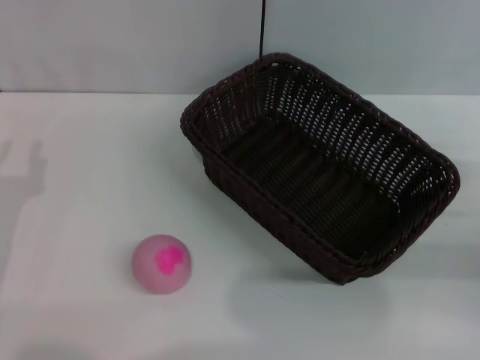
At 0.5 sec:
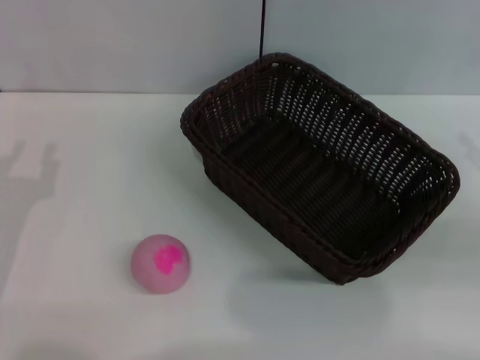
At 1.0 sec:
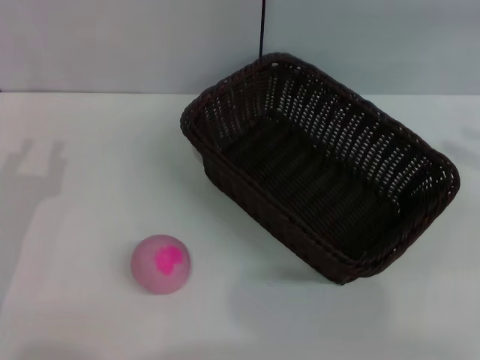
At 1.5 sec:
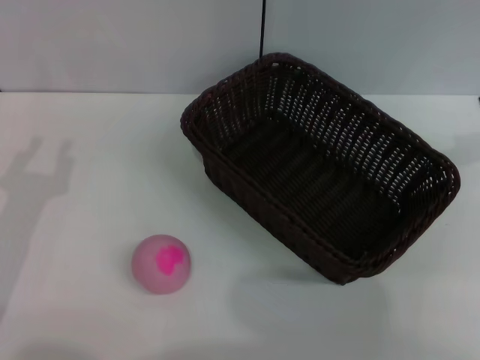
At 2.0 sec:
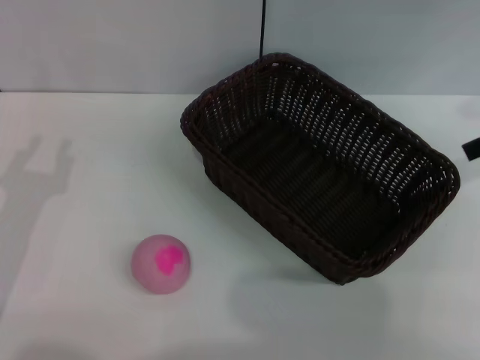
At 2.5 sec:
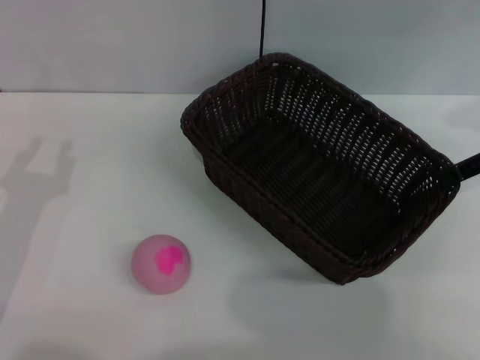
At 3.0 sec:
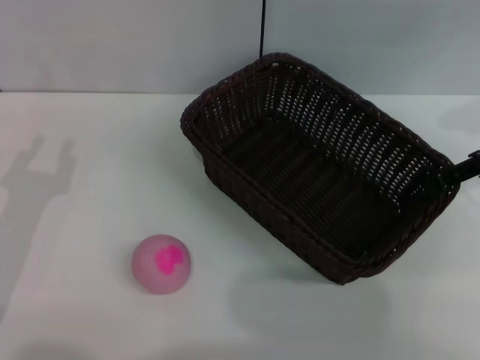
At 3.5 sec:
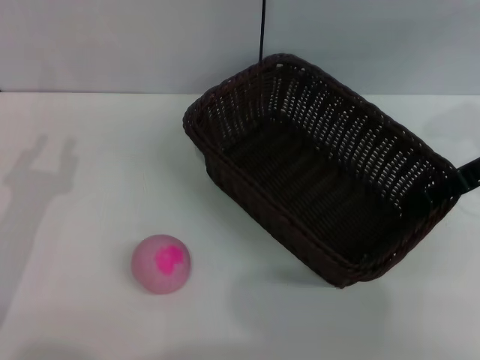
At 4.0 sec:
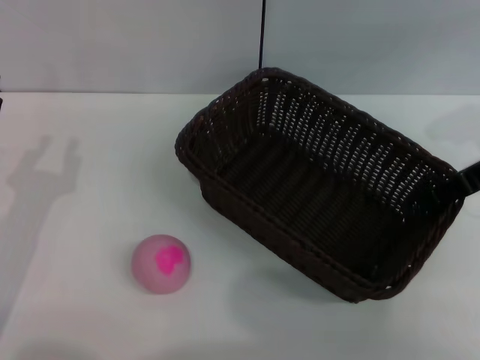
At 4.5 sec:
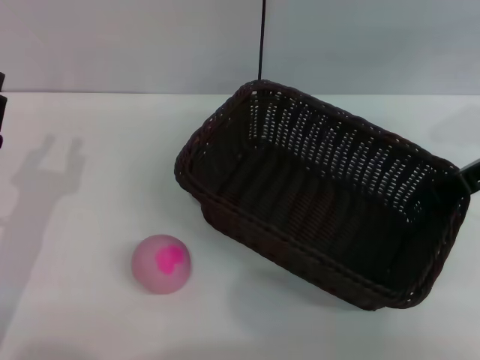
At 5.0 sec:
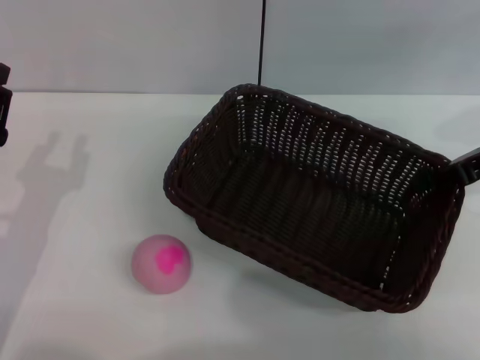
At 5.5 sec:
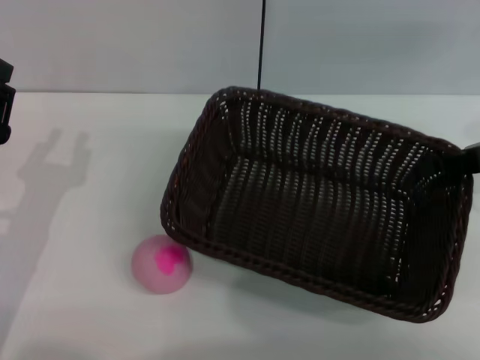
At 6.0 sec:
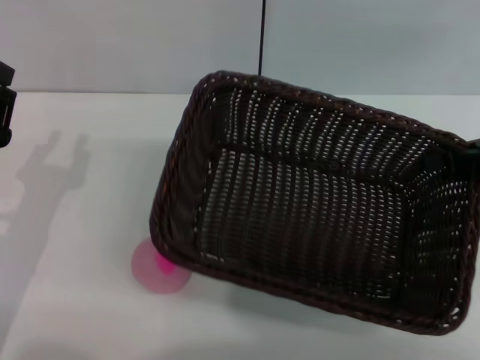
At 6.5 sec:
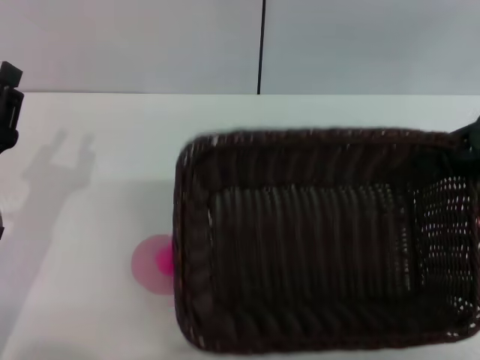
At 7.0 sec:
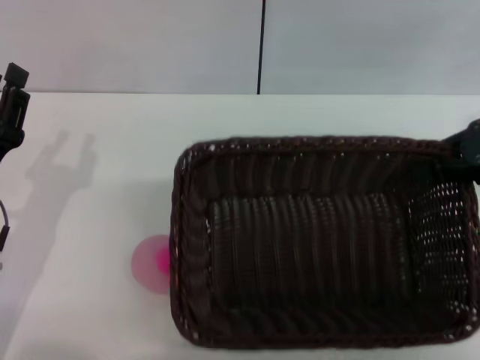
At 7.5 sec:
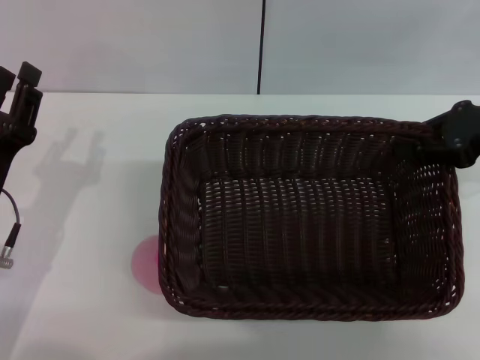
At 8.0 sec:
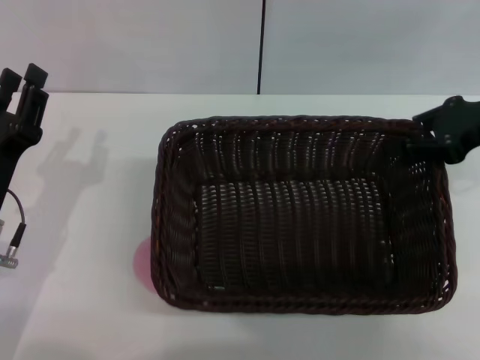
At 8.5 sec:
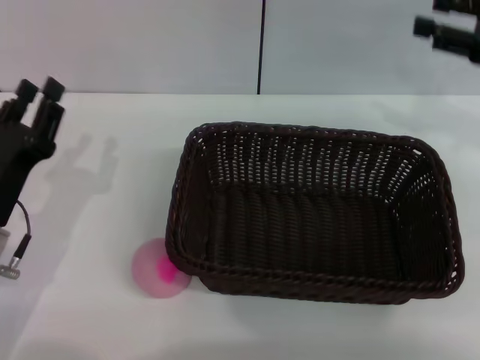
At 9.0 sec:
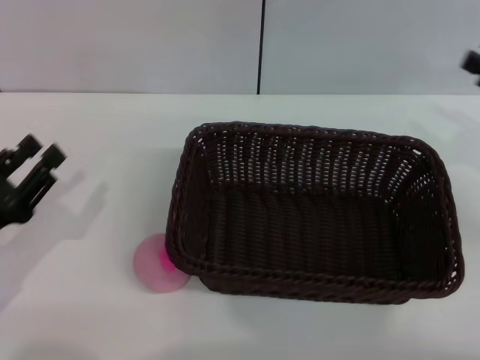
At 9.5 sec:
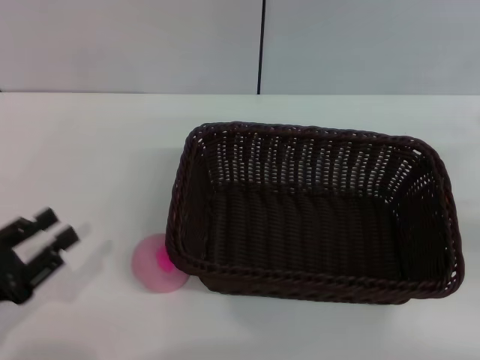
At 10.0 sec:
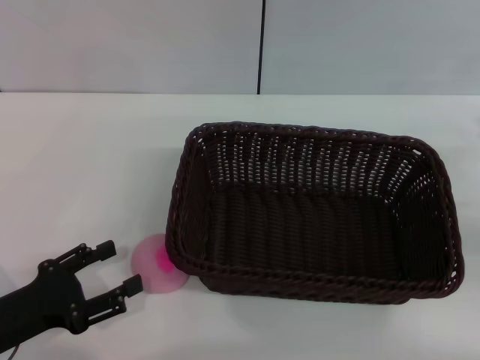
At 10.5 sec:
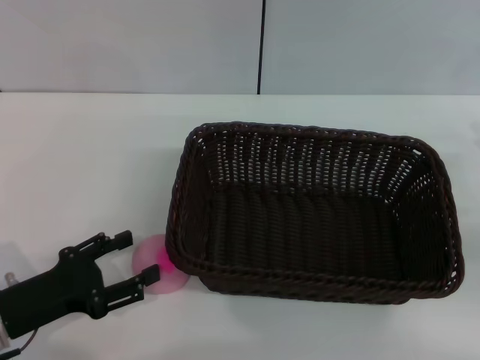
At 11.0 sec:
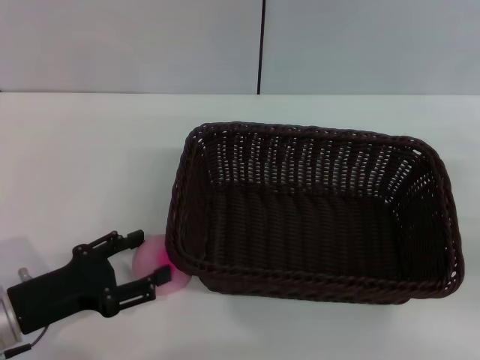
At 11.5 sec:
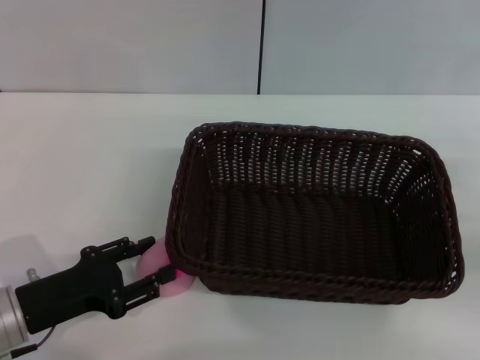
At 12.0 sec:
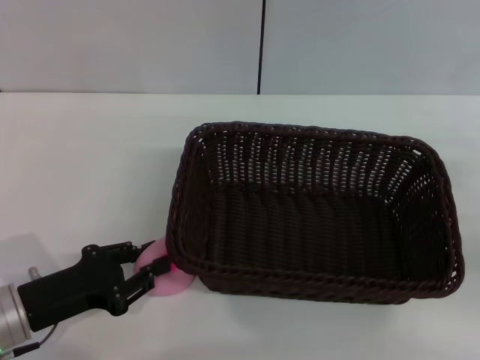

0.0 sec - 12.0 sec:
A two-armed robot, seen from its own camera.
Step, 0.0 sec - 5.5 sec: Pick up the dark basket with the right gripper.
Step, 6.0 sec - 8.5 sec: Place the dark basket in the center of view with the right gripper.
0.0 sec - 2.0 sec: The right gripper travels upward and forward by some 20 cm.
2.0 sec - 4.0 sec: The right gripper heads downward, covering approximately 5 cm, and closes up.
4.0 sec - 6.0 sec: The right gripper ends up about 5 cm from where it was.
6.0 sec - 8.0 sec: The right gripper moves some 5 cm.
8.0 sec - 10.0 sec: The right gripper shifts about 15 cm backward, to the right and downward, and opens up. The left gripper travels backward by roughly 5 cm.
10.0 sec - 12.0 sec: The left gripper closes up.

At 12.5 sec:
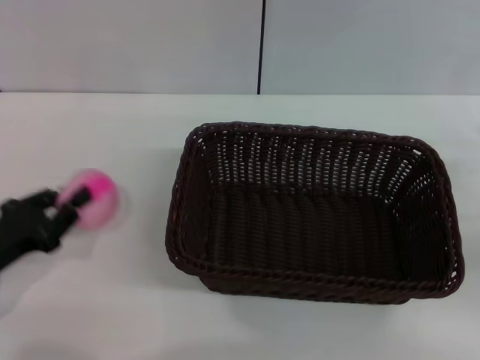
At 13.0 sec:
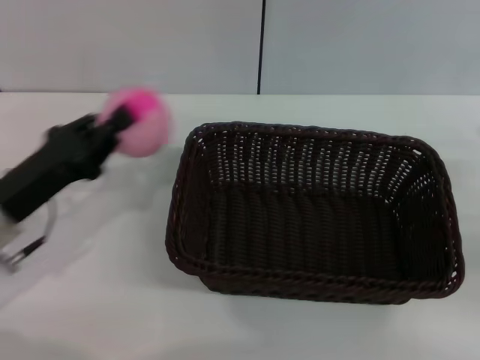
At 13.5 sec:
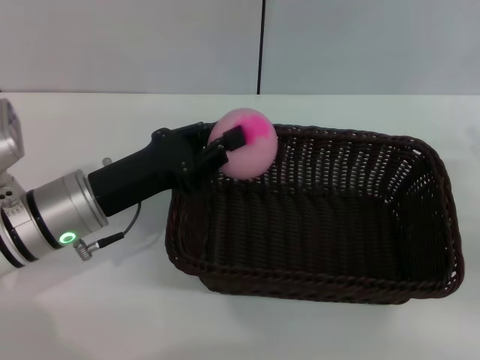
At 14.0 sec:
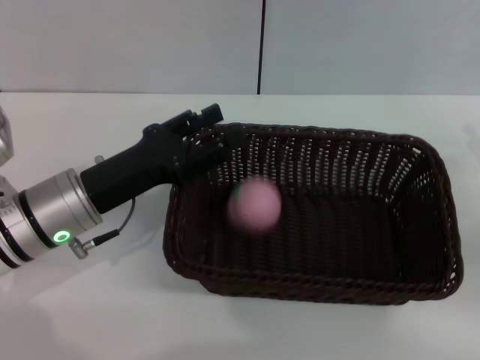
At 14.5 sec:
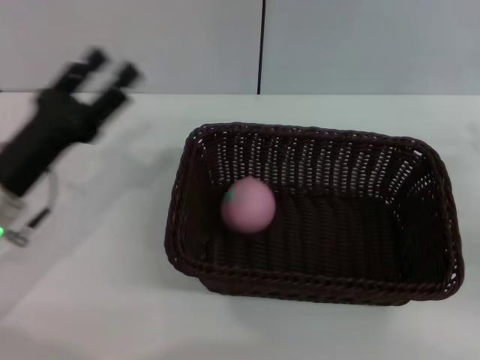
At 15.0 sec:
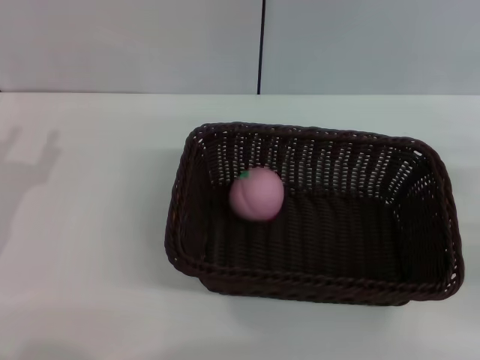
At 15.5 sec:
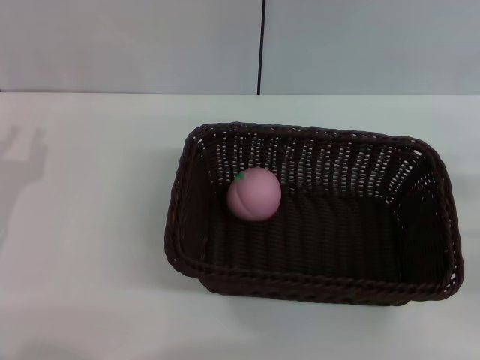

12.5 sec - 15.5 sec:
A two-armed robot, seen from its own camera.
Step, 13.0 sec - 14.0 sec: Place the peach into the basket with the left gripper.
12.5 sec - 14.0 sec: The left gripper shifts roughly 15 cm to the right and forward.
14.0 sec - 15.5 sec: The left gripper is displaced to the left and backward by some 15 cm.

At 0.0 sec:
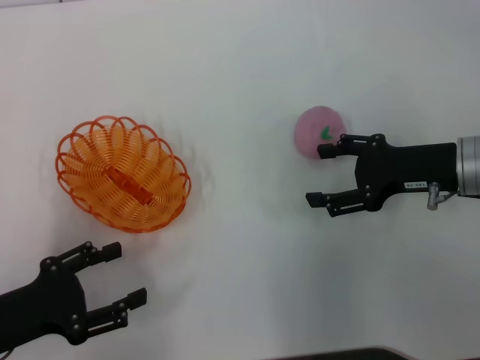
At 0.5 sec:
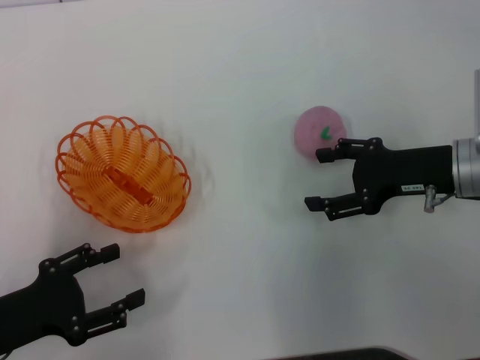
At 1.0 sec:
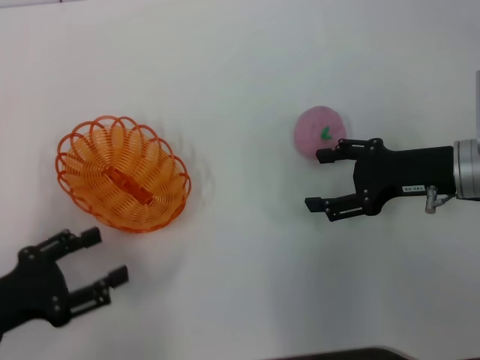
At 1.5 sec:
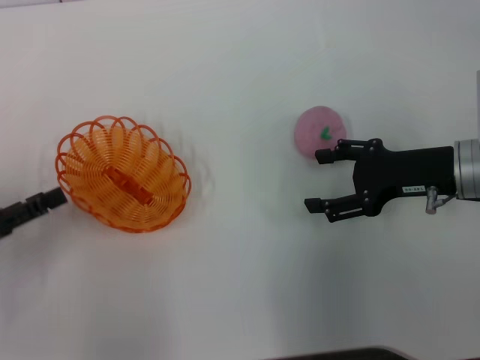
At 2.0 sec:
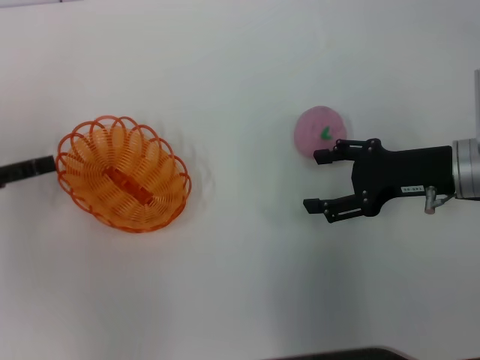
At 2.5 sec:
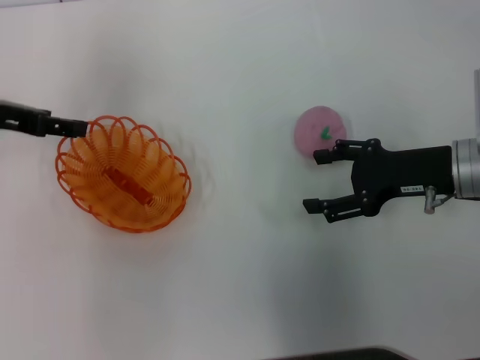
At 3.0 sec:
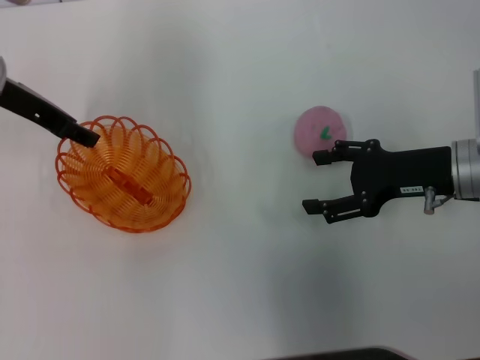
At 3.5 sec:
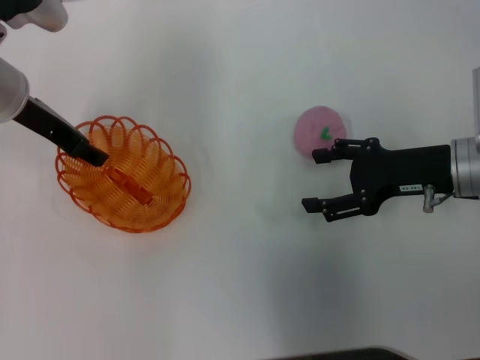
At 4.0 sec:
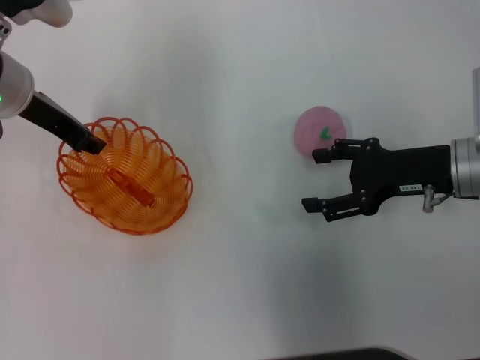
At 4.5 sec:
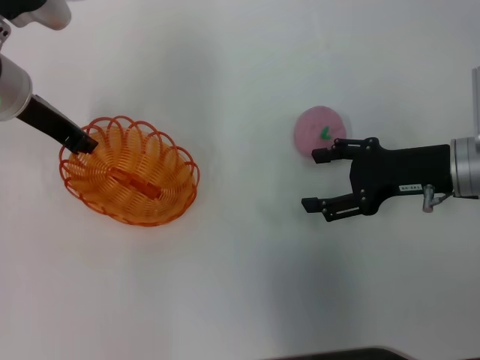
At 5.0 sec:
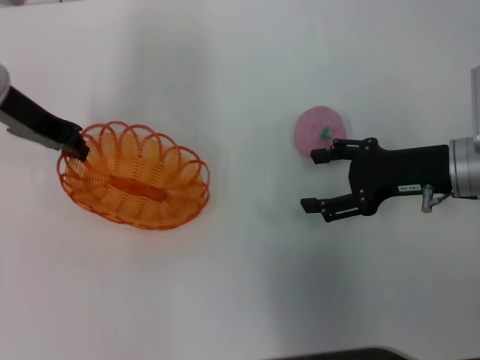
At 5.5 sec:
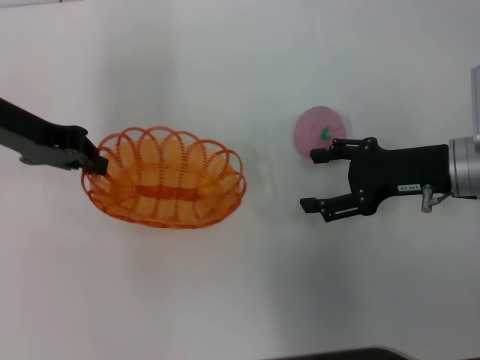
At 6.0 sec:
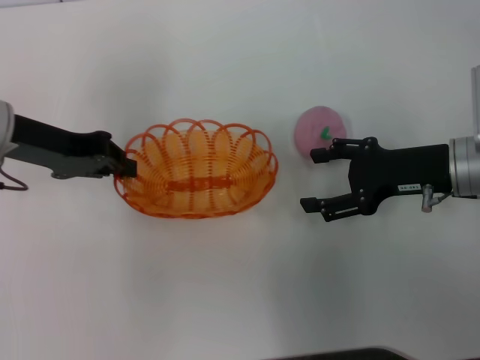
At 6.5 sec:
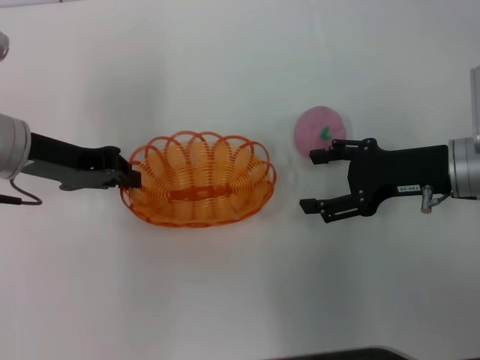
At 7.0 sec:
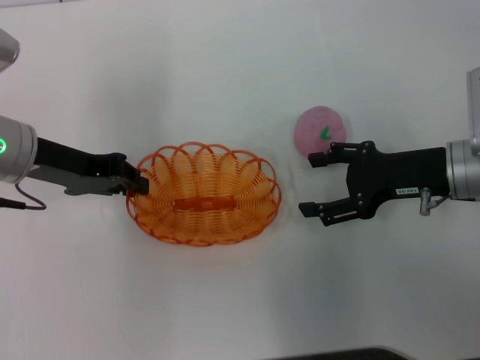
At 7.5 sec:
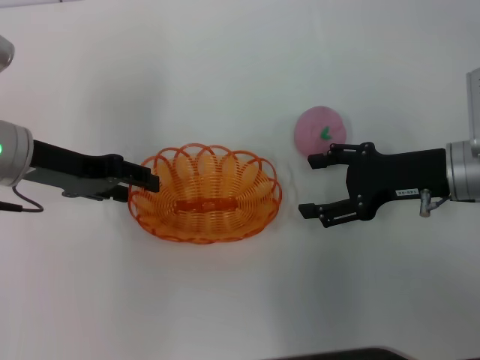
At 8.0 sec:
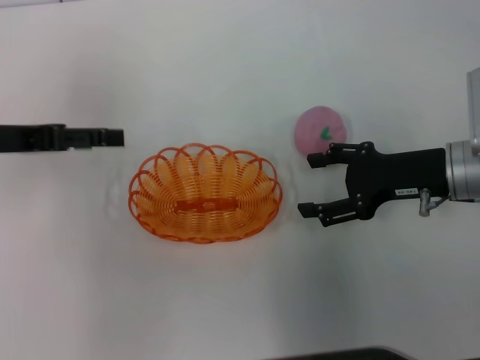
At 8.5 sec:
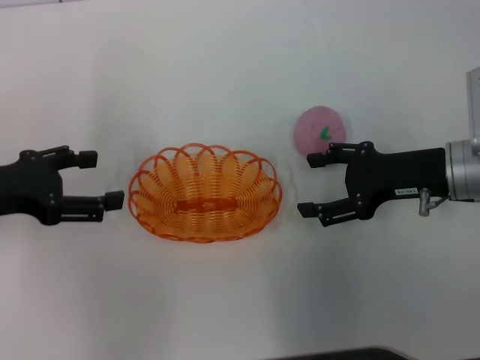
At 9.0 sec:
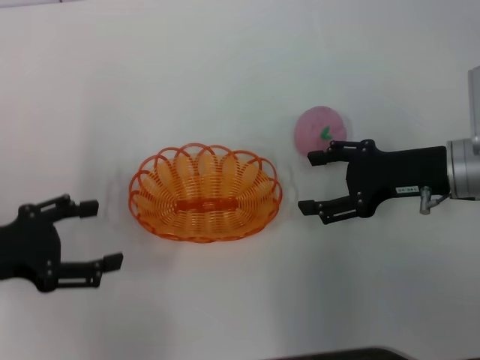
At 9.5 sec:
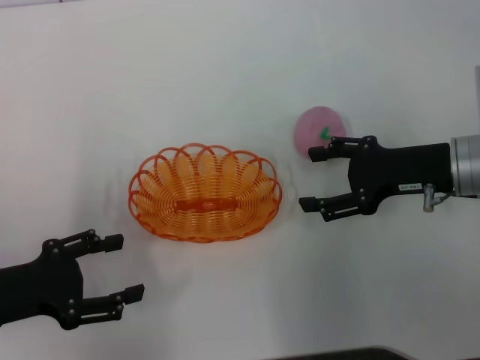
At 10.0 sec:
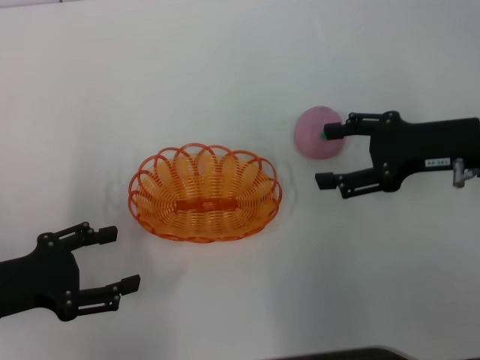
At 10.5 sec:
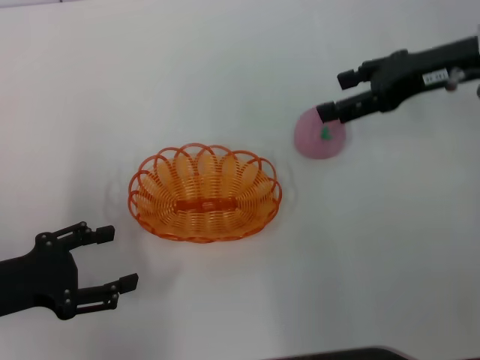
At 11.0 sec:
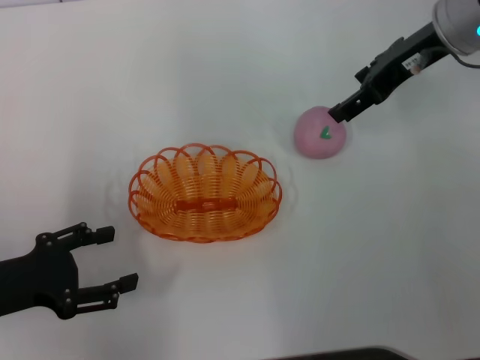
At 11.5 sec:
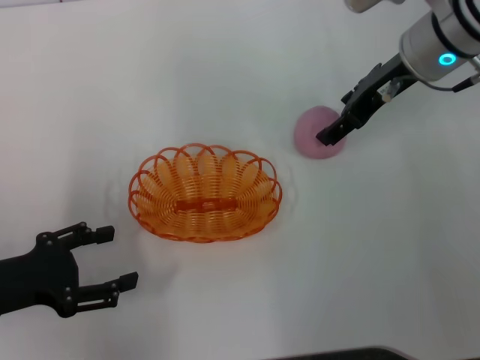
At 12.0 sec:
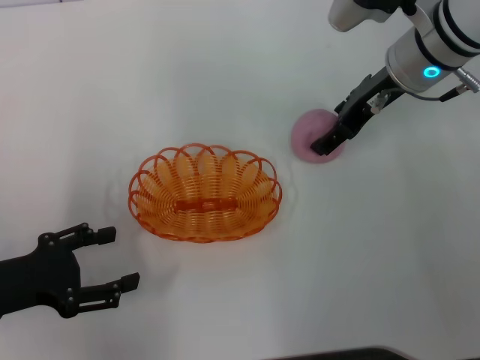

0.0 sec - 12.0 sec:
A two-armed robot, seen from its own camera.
Step, 0.0 sec - 5.0 sec: Pick up the basket with the left gripper.
Step, 5.5 sec - 7.5 sec: Place the basket in the center of view with the left gripper.
0.0 sec - 2.0 sec: The left gripper goes about 15 cm forward, upward and to the left.
2.0 sec - 4.0 sec: The left gripper is displaced to the right and forward by about 20 cm.
4.0 sec - 6.0 sec: The left gripper moves approximately 5 cm, and closes its fingers.
6.0 sec - 8.0 sec: The left gripper travels to the left by some 5 cm, and opens.
8.0 sec - 10.0 sec: The left gripper goes about 15 cm backward and downward.
10.0 sec - 12.0 sec: The right gripper travels forward and to the left by some 15 cm.
